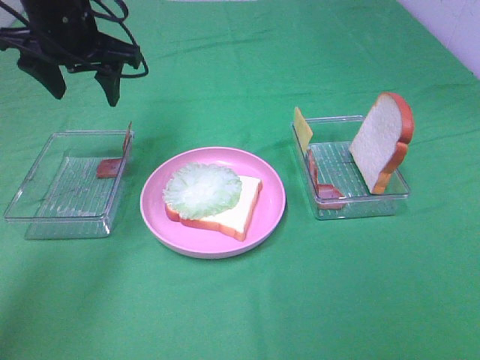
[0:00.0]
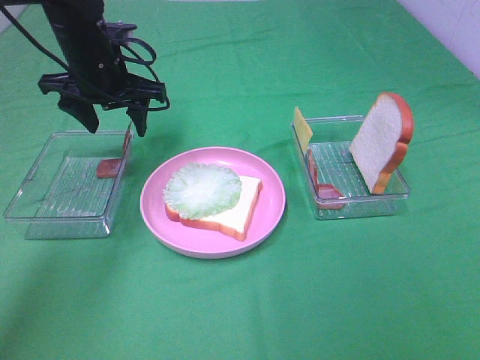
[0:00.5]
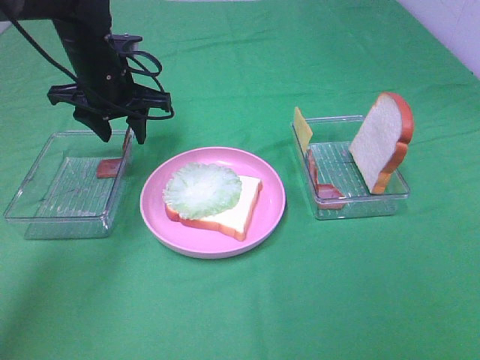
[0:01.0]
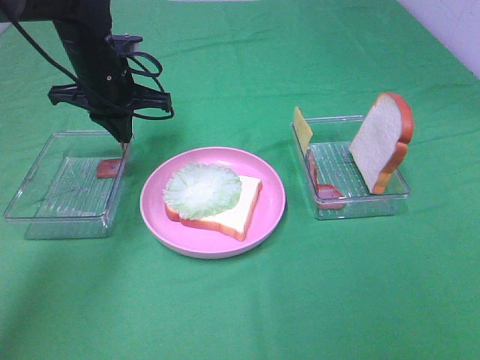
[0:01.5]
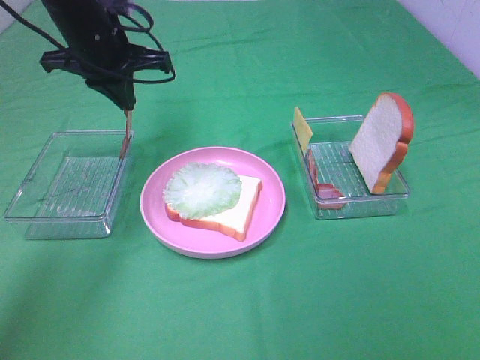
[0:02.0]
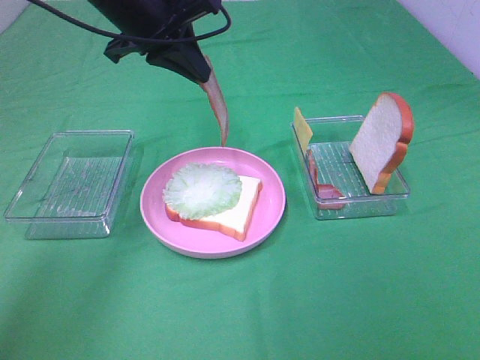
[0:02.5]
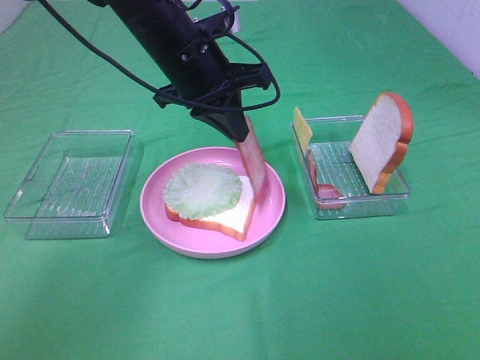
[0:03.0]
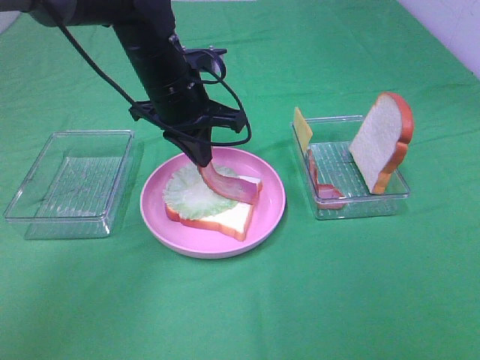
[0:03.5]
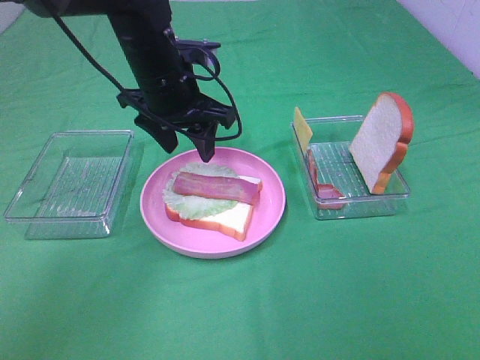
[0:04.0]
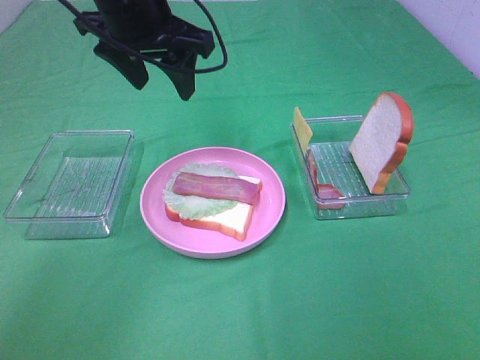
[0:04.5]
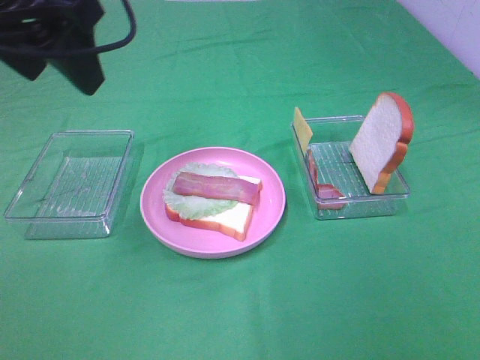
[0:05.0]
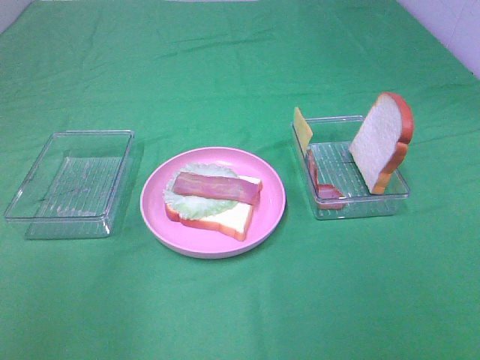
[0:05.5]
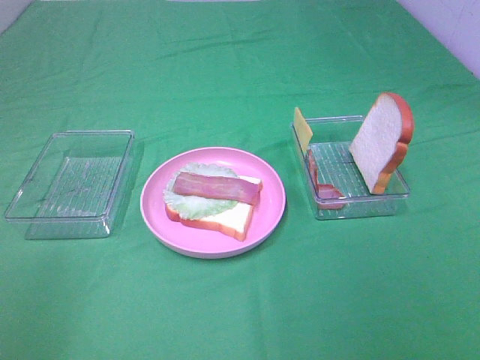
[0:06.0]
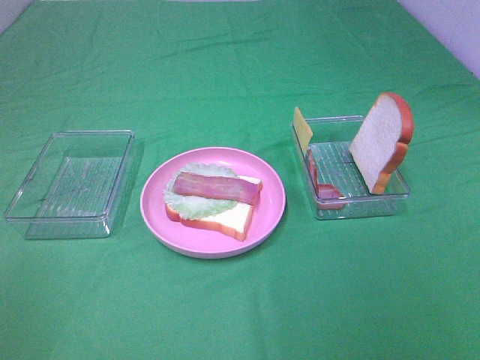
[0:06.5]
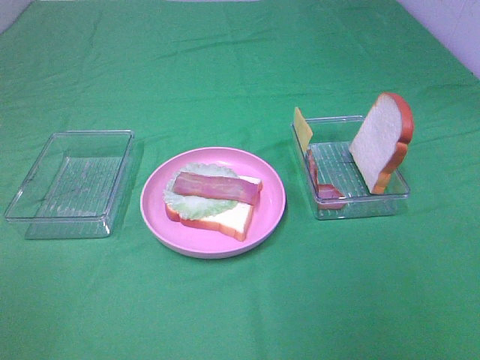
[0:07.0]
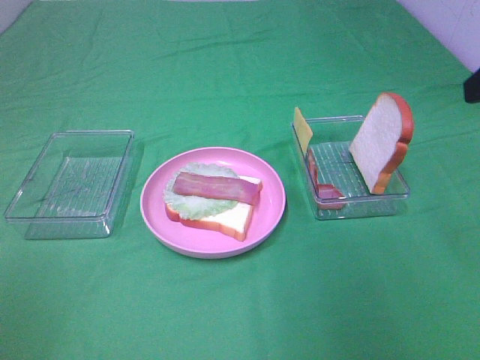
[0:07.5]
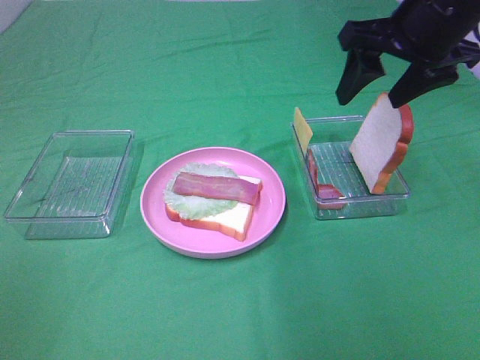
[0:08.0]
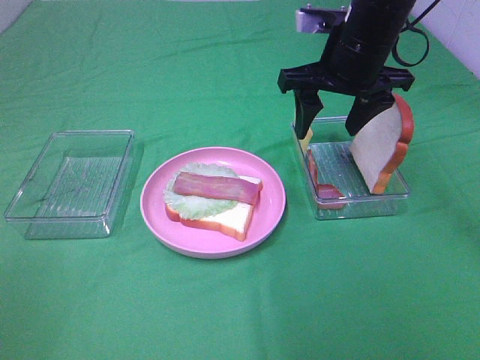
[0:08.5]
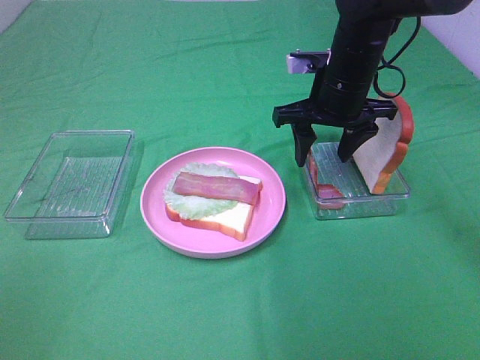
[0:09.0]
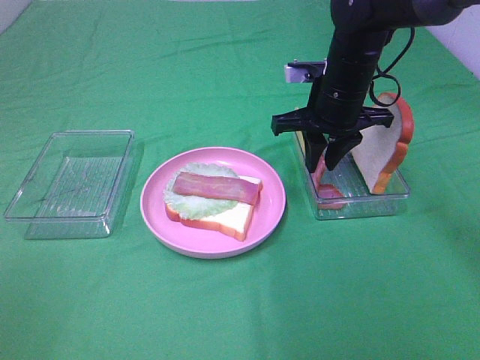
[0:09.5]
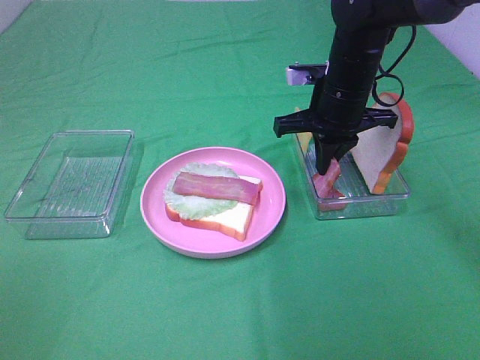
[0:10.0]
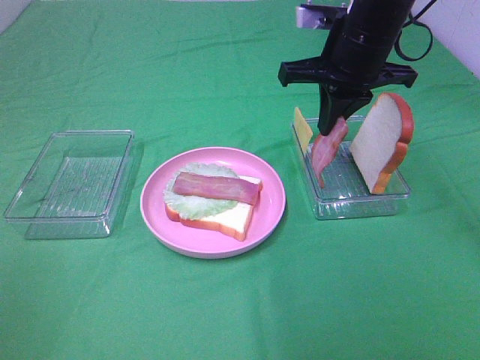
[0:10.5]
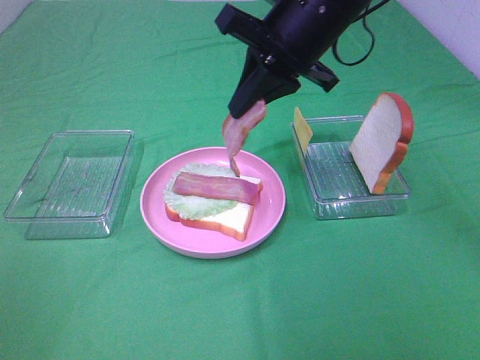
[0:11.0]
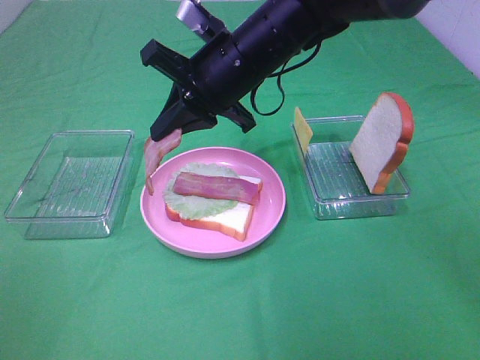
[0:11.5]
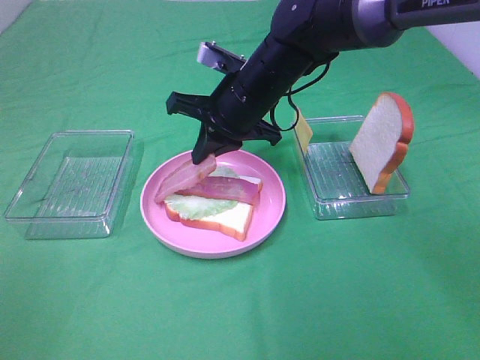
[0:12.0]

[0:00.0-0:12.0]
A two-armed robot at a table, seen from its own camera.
Task of the whole recording: Make sandwiches.
Step, 0.0 to 1.5 s: Left hand:grab the bacon.
Step, 2.0 to 4.0 s: Left hand:place bacon on lettuce slice.
Step, 4.5 to 9.5 s: Right hand:grab the bacon.
0.0 to 2.0 s: The left gripper travels downward and back again, about 10 cm each way, and closes.
2.0 to 4.0 s: The left gripper goes about 10 cm to the right, and opens.
4.0 to 6.0 s: The left gripper moves backward and to the left, approximately 40 cm.
6.0 to 8.0 s: The right gripper travels forward by approximately 35 cm.
8.0 to 10.0 s: The right gripper heads downward, to the left and forward, covering approximately 15 cm, and closes its fingers.
10.0 to 12.0 s: The right gripper is displaced to the left by approximately 10 cm.

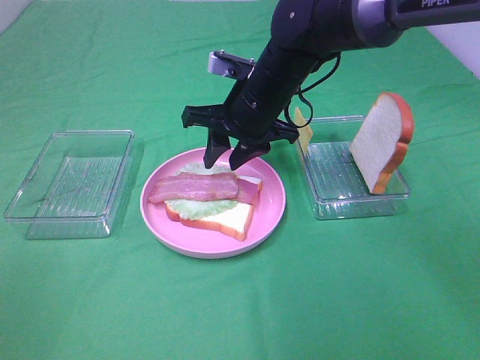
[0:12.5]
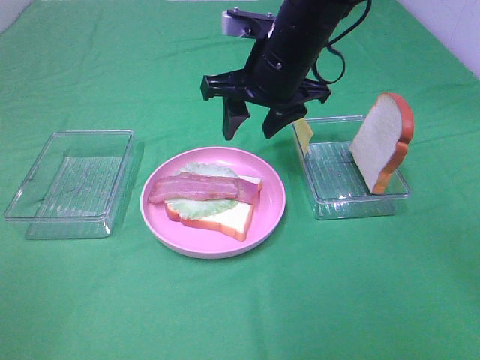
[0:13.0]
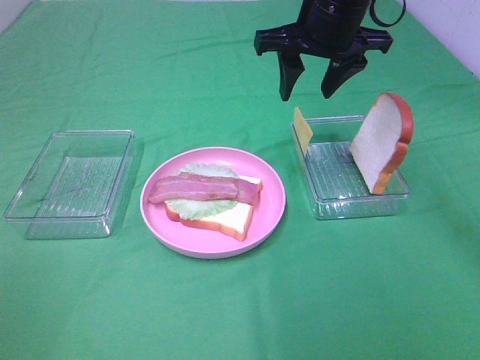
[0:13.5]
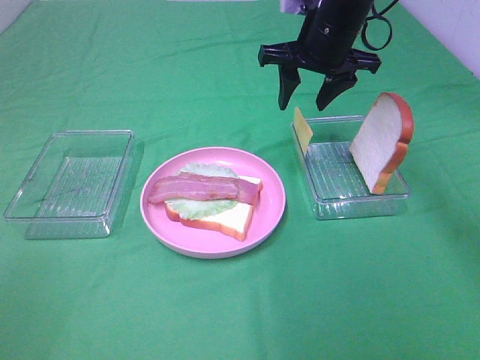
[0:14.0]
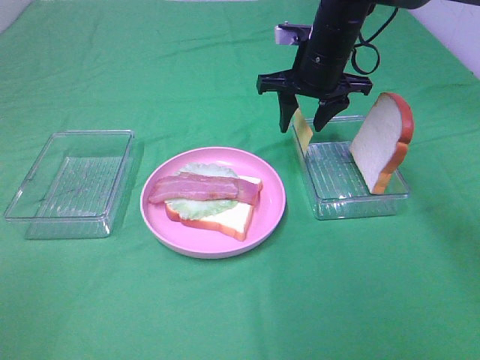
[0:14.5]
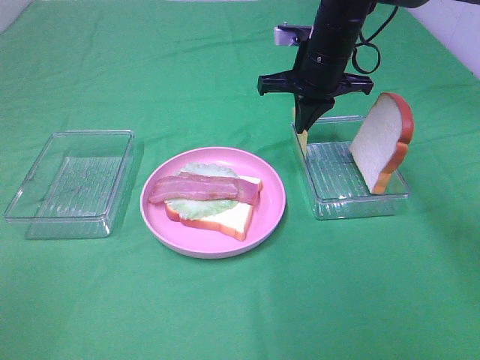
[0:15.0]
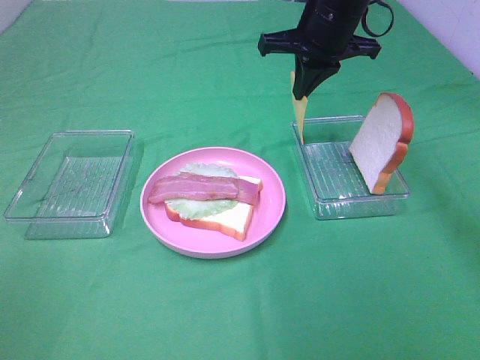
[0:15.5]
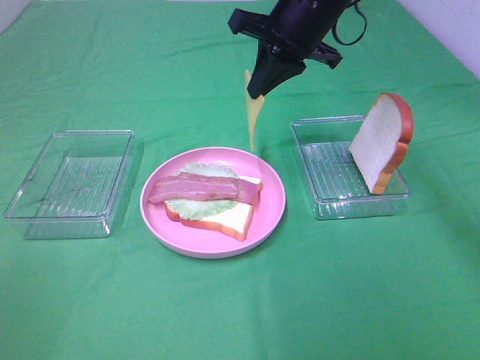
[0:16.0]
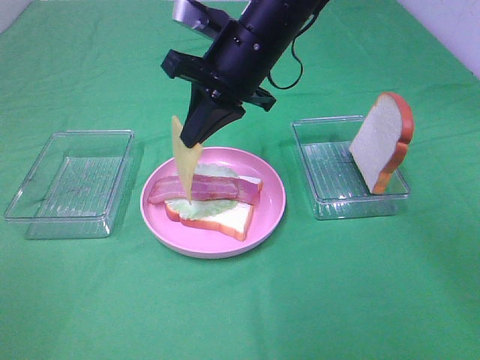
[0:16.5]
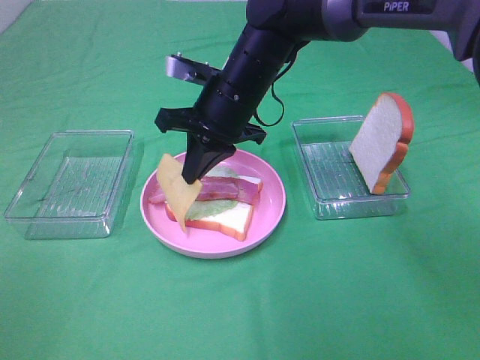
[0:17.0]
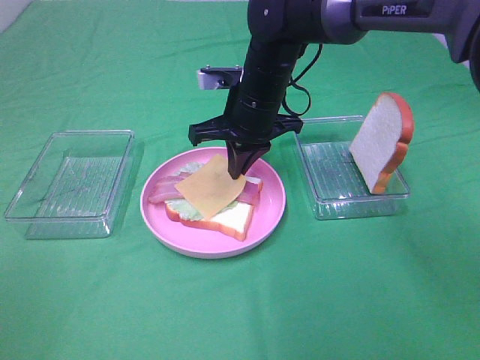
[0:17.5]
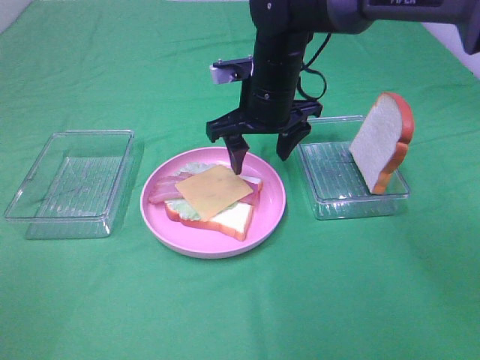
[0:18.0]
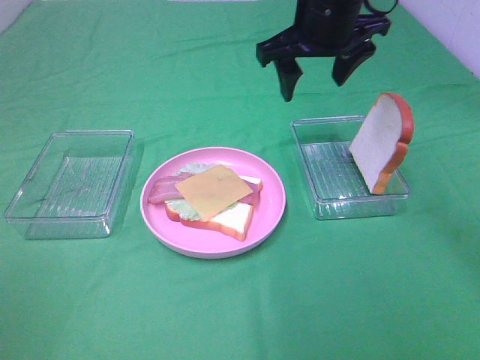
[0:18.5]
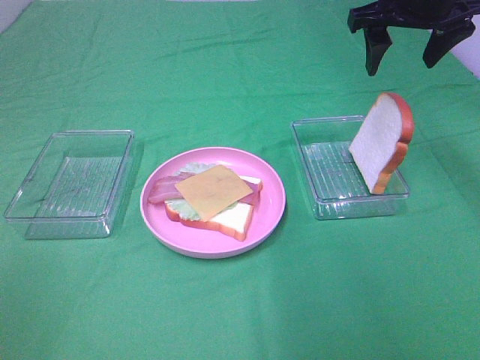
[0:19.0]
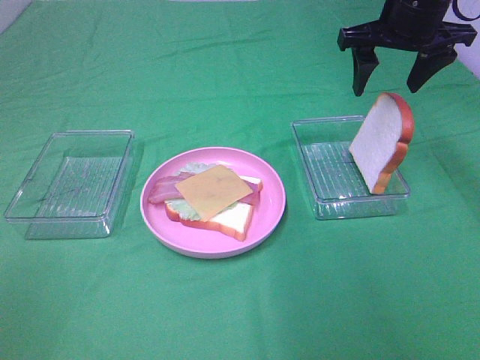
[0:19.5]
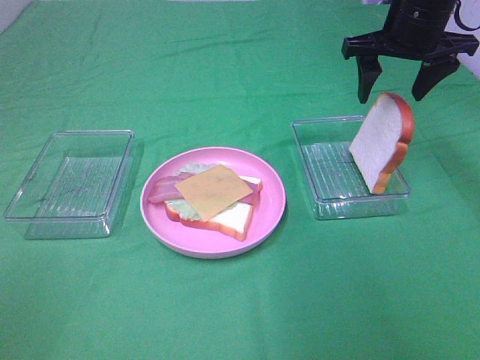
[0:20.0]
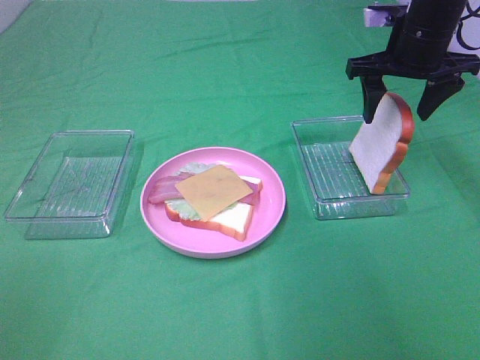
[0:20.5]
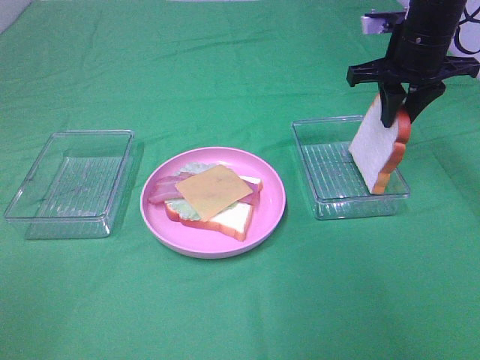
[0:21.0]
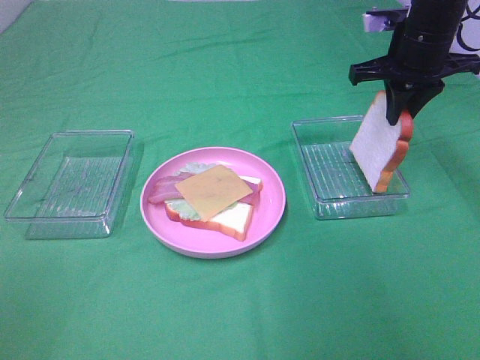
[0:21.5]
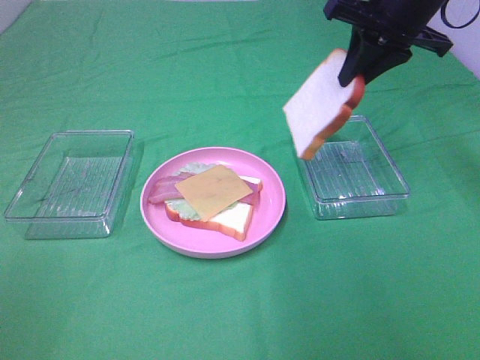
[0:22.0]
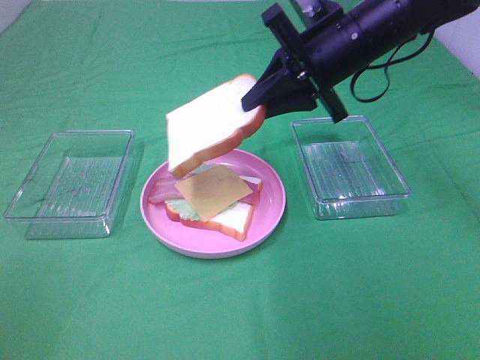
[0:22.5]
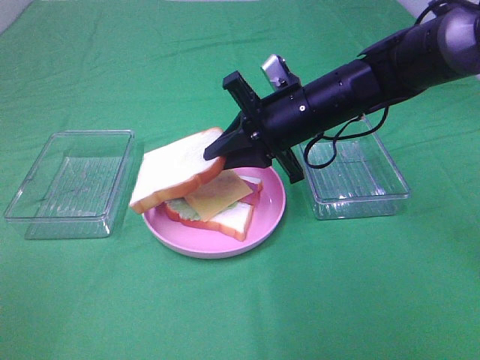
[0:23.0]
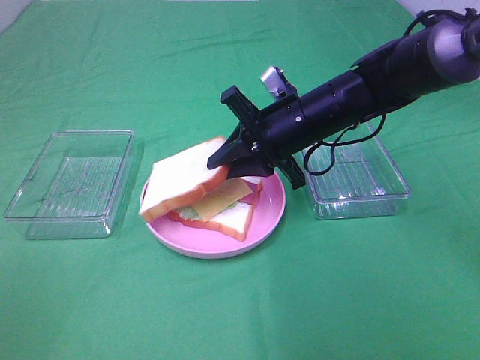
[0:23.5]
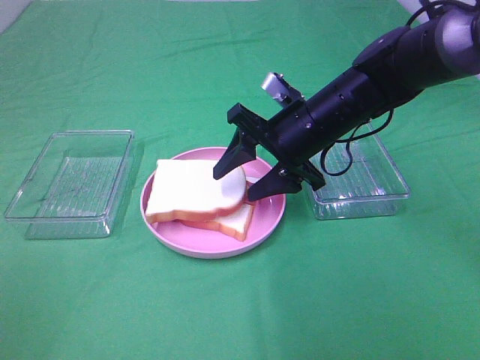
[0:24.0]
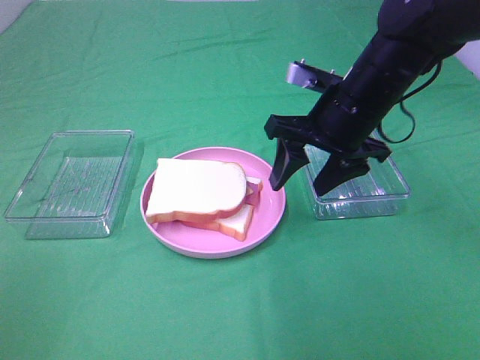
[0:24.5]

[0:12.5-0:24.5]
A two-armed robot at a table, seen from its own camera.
Task of the whole recording: Make sandwiches.
Step, 13.0 to 15.0 s: Right hand:grab the cheese slice.
Step, 15.5 to 17.5 s: Right hand:place the cheese slice on top of the bacon.
Step, 18.0 to 21.0 s: Right hand:grab the bread slice.
Step, 21.5 to 24.0 s: Right hand:place the bread slice on the cheese slice.
12.5 to 14.5 s: The right gripper heads to the right and forward, covering roughly 10 cm, and travels upward and back again, approximately 10 cm each way.
14.5 to 16.5 s: The right gripper is displaced to the left and backward by some 15 cm, and closes its fingers.
16.5 to 18.5 s: The right gripper shifts roughly 10 cm to the right, and opens up.
18.5 to 20.5 s: The right gripper heads to the right, covering about 10 cm.
20.5 to 22.5 s: The right gripper goes about 10 cm to the left and backward, and closes up.
22.5 to 24.5 s: The right gripper opens.

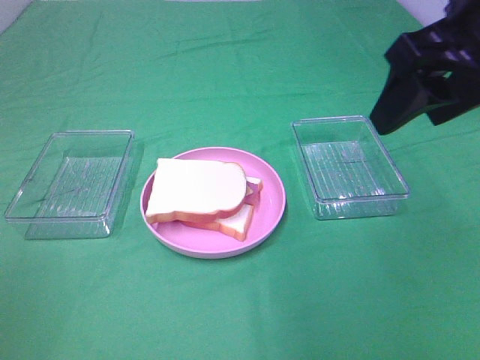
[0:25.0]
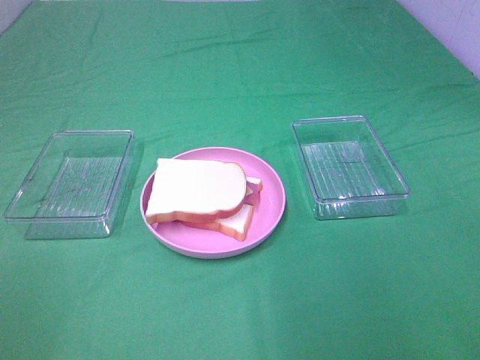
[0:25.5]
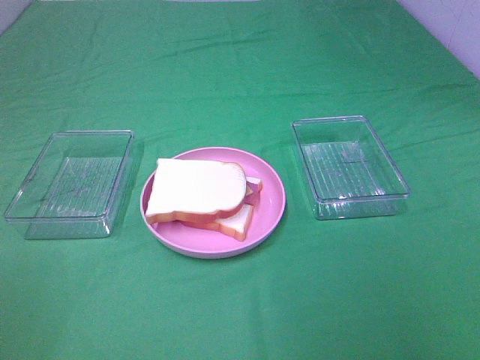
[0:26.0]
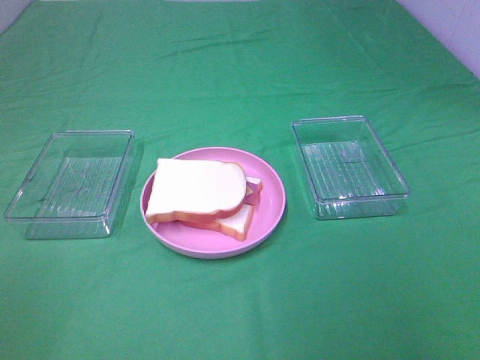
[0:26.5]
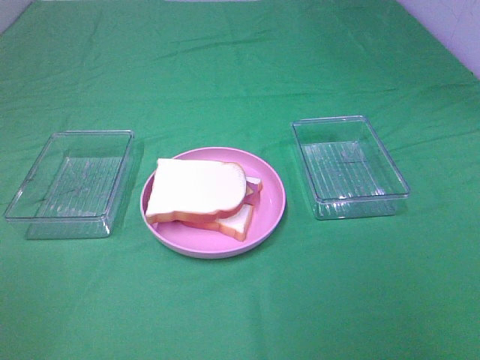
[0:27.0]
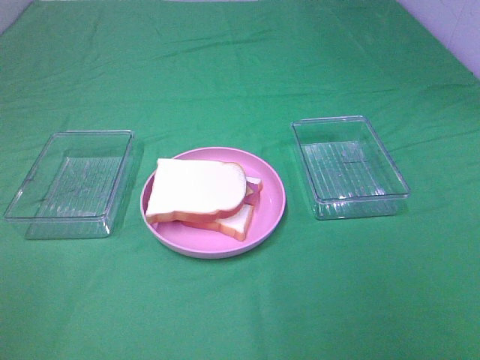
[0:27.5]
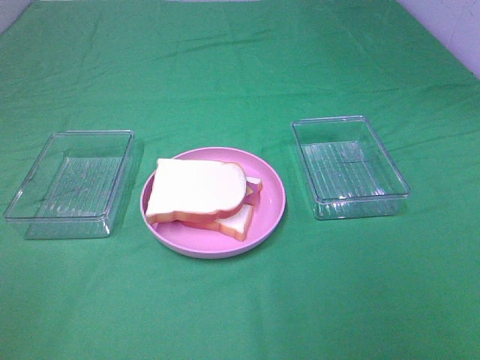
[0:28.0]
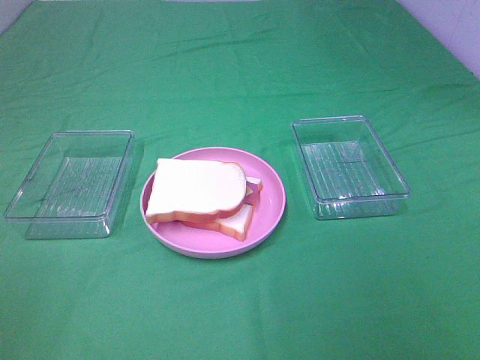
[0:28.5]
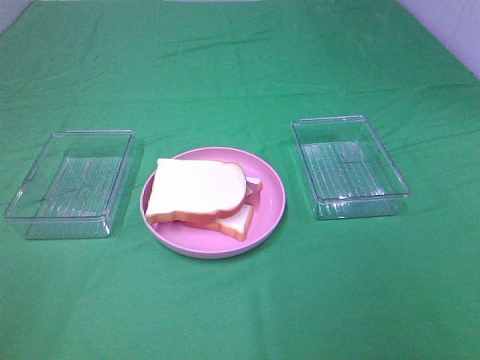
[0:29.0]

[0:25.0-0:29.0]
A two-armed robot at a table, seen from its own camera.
Task of the whole recording: Make sandwiches.
25.0 to 27.0 s: The right gripper moves backward and to the right, some 25 cm.
